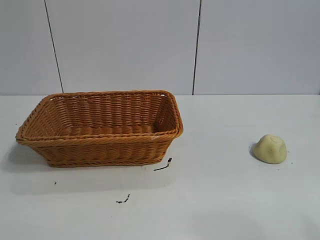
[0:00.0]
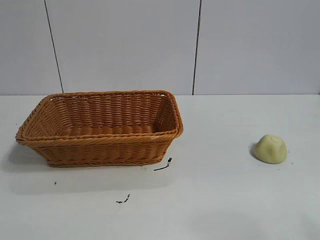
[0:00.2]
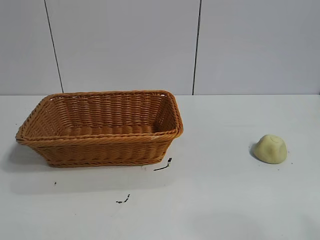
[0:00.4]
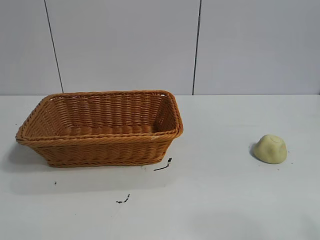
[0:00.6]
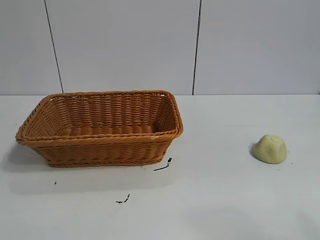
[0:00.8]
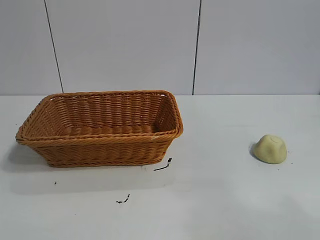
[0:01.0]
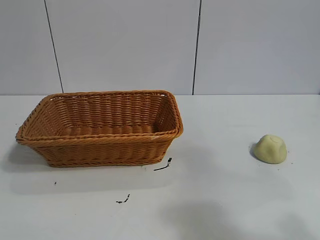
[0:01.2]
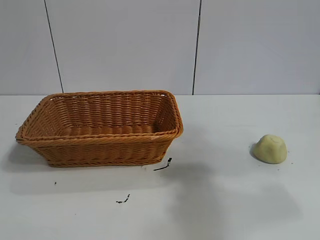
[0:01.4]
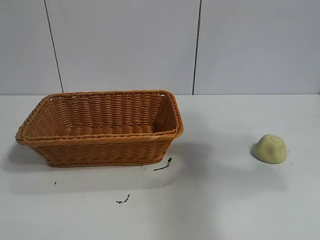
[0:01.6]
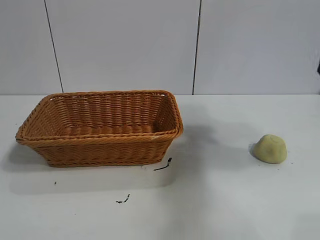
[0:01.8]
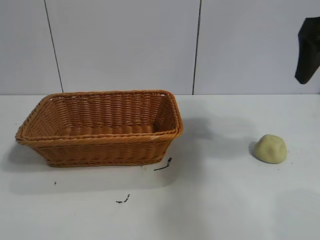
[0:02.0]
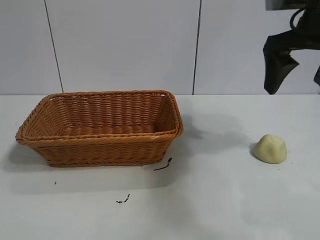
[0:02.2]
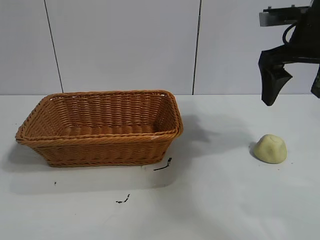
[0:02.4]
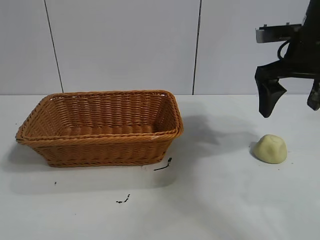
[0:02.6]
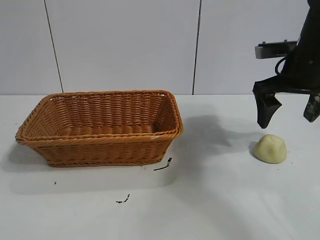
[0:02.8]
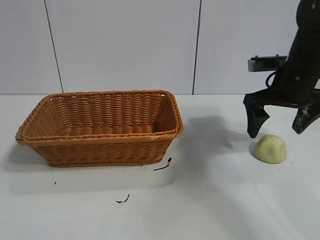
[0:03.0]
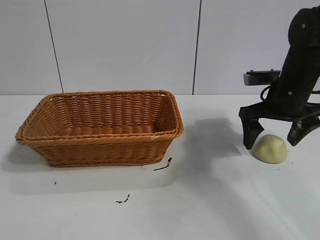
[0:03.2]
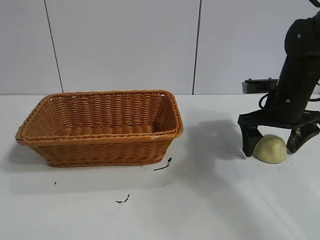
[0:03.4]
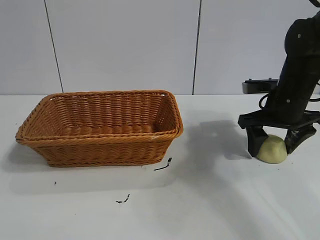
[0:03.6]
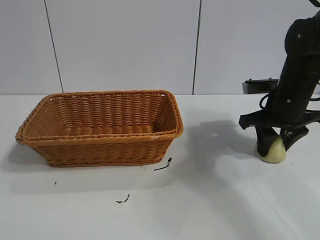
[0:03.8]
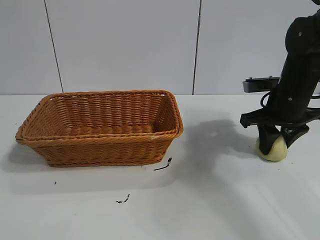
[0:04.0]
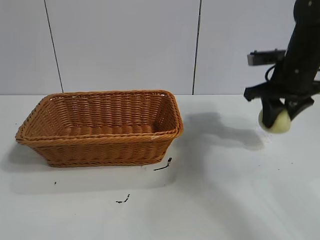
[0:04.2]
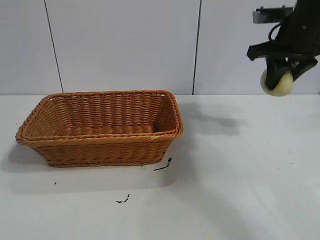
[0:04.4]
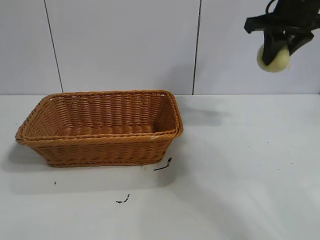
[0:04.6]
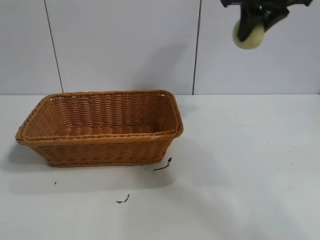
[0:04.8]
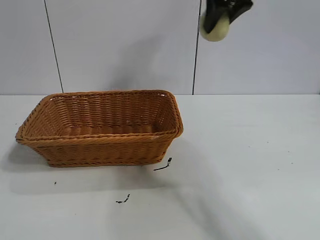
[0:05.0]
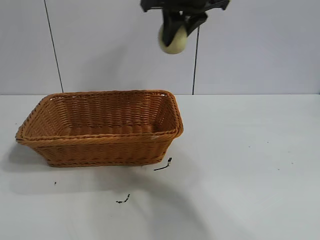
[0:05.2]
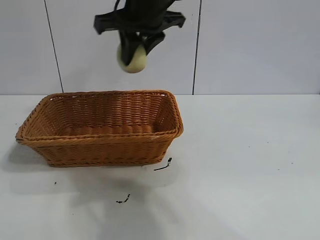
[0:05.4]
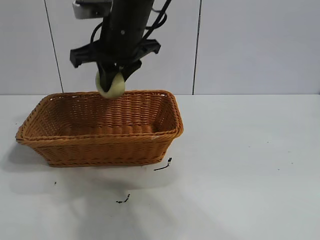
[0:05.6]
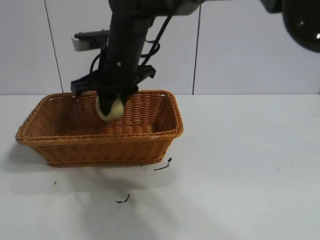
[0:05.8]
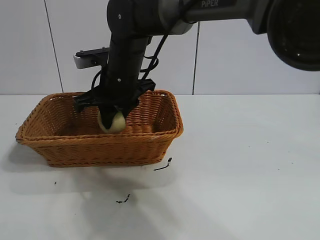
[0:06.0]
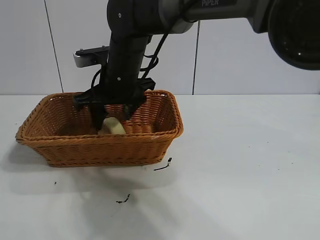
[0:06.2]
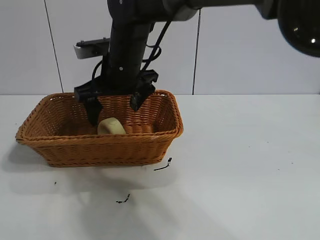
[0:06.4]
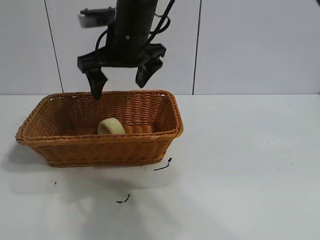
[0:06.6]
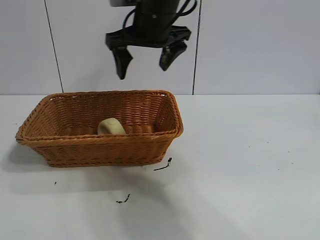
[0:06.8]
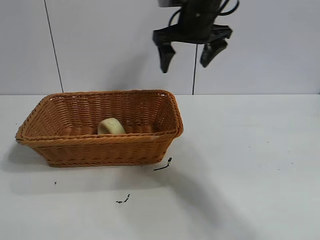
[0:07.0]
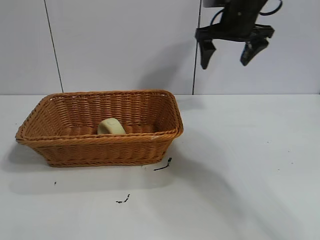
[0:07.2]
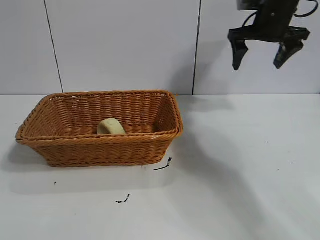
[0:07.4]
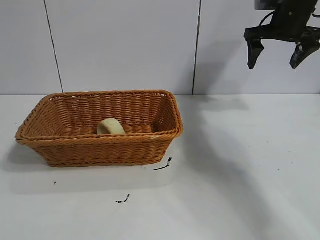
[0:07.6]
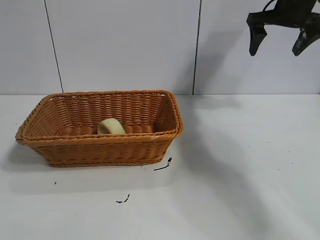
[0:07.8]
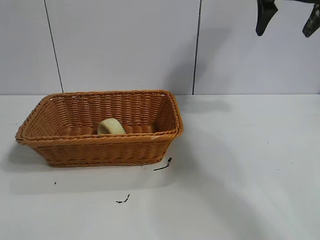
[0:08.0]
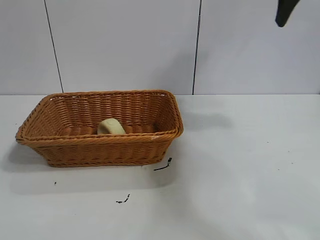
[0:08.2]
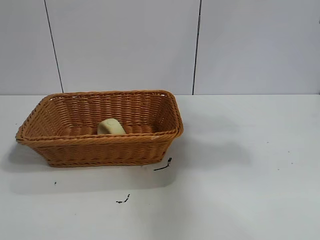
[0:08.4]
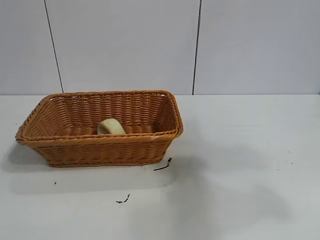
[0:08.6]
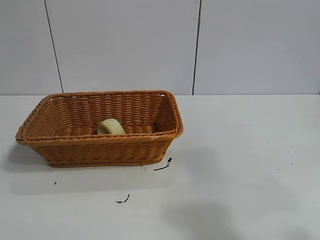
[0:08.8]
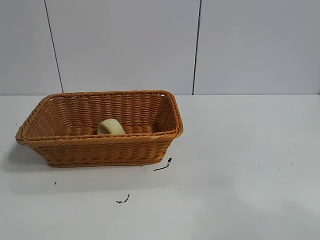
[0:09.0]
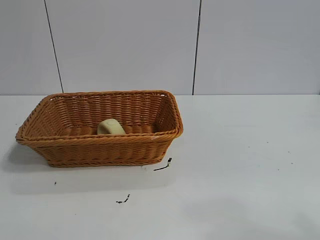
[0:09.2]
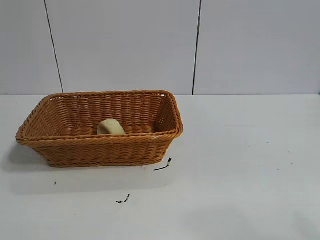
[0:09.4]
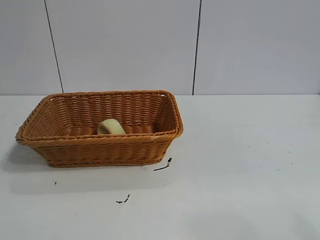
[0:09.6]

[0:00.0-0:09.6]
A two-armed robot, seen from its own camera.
Task of the whole recording: pick up the egg yolk pastry and put it into the basket.
Step, 0:00.8 to 0:03.8: Grasp egg yolk pastry with right gripper.
Step, 0:04.0 to 0:06.2: Place the egg yolk pastry in the basket with right gripper.
